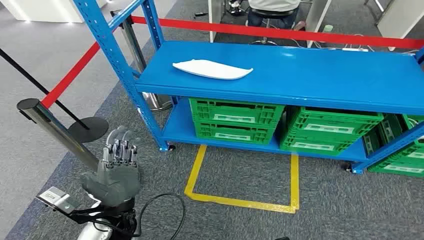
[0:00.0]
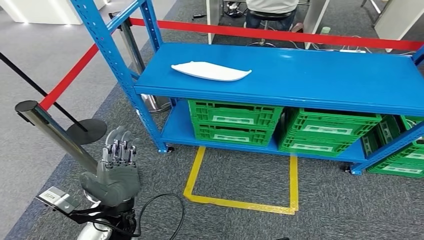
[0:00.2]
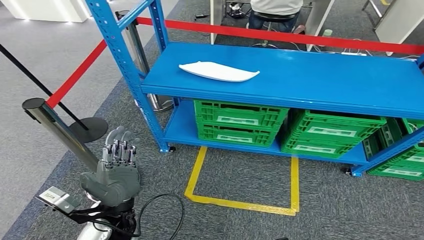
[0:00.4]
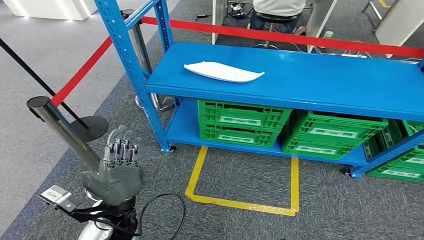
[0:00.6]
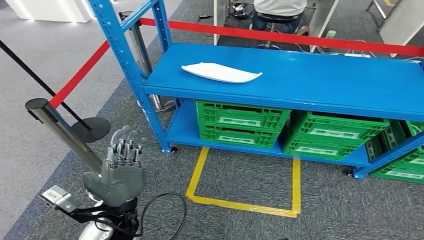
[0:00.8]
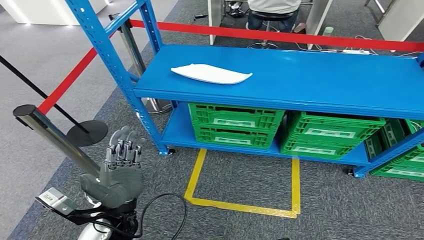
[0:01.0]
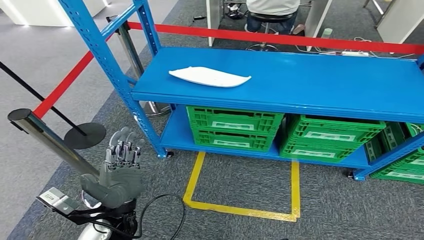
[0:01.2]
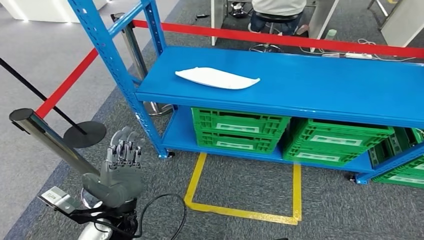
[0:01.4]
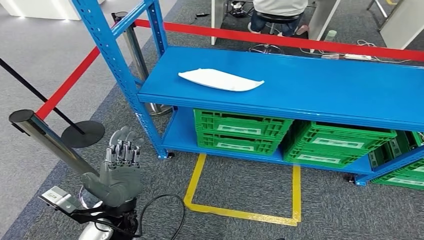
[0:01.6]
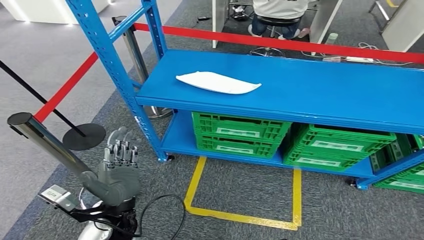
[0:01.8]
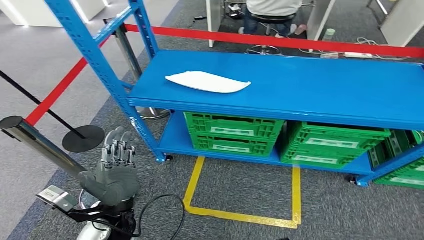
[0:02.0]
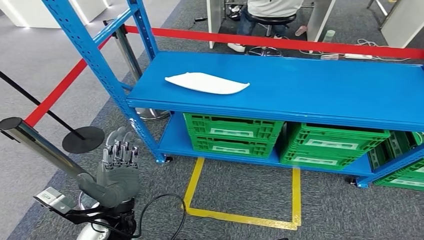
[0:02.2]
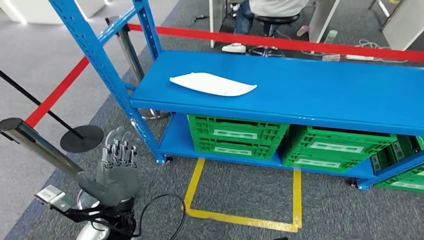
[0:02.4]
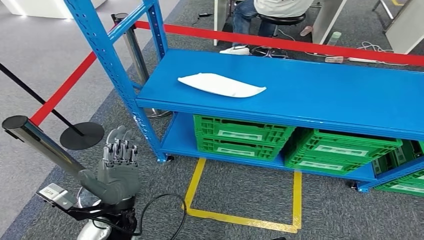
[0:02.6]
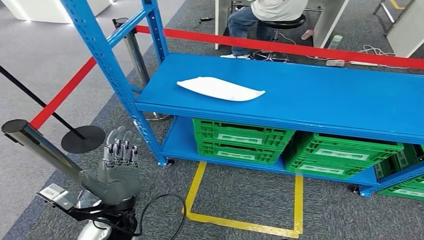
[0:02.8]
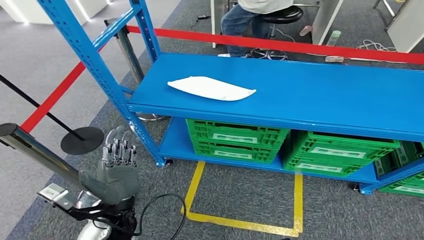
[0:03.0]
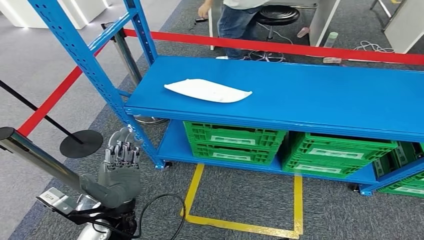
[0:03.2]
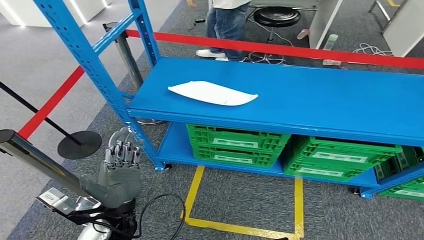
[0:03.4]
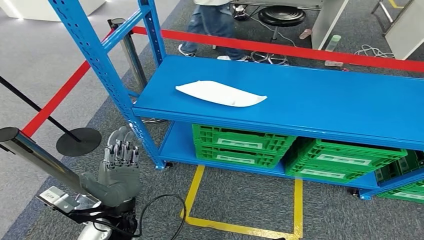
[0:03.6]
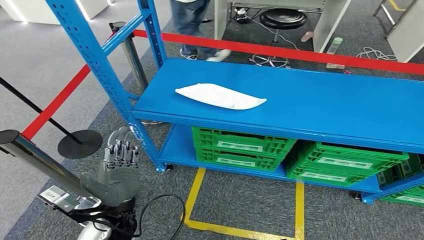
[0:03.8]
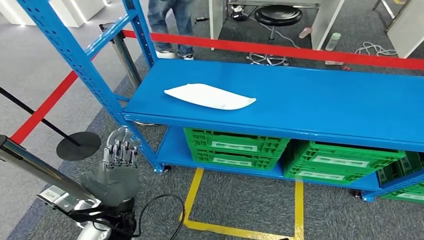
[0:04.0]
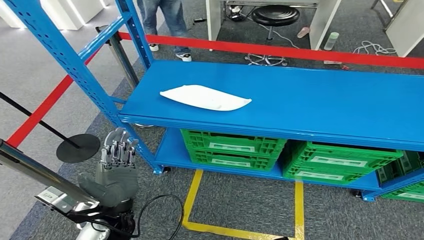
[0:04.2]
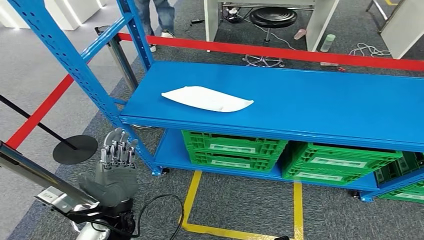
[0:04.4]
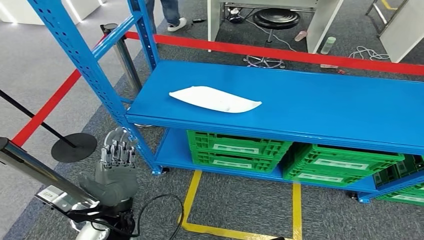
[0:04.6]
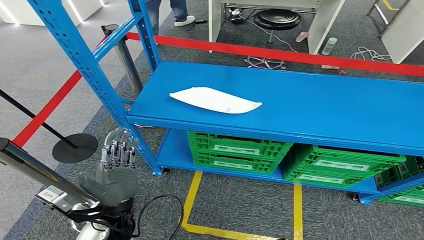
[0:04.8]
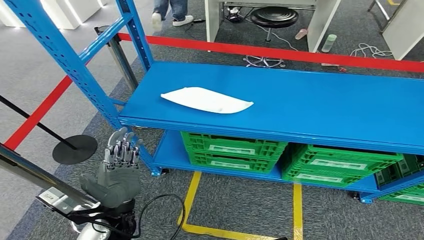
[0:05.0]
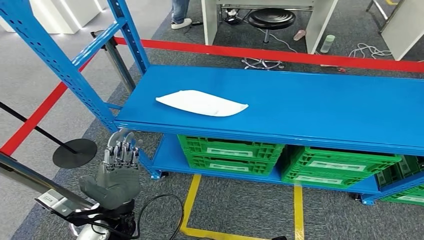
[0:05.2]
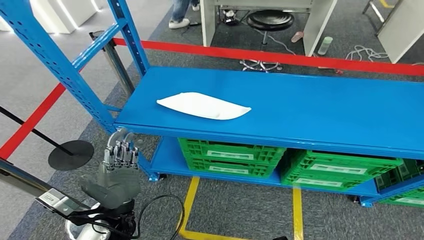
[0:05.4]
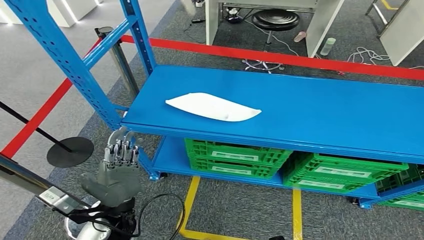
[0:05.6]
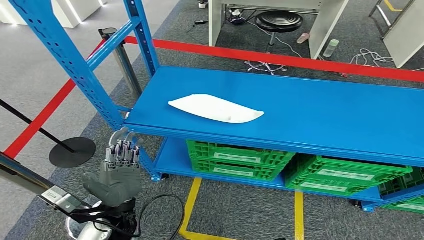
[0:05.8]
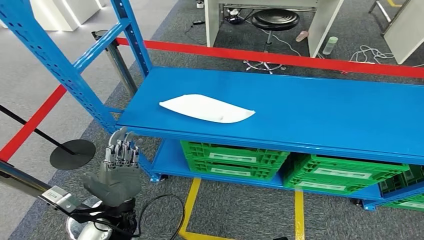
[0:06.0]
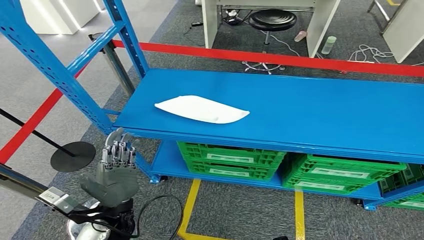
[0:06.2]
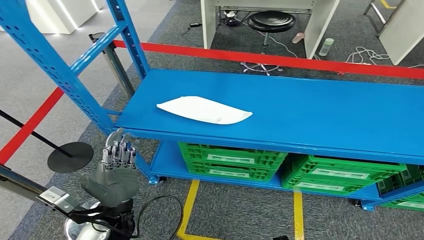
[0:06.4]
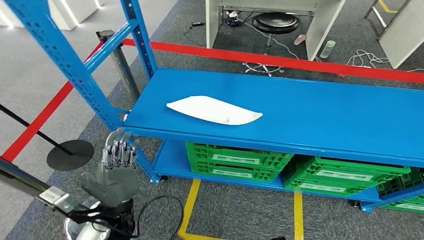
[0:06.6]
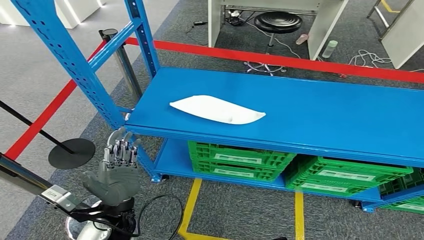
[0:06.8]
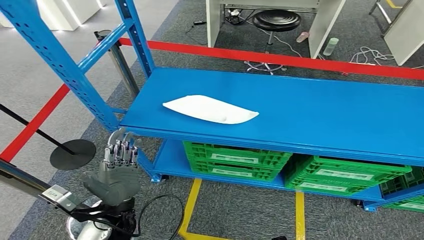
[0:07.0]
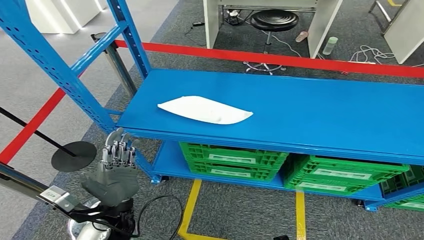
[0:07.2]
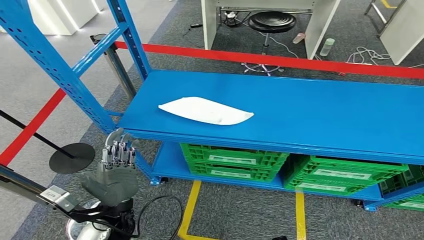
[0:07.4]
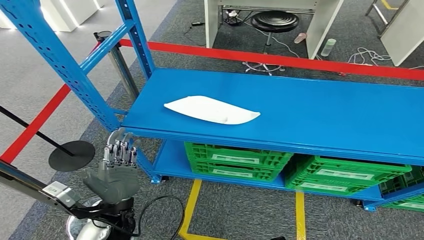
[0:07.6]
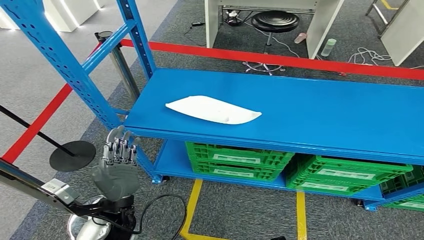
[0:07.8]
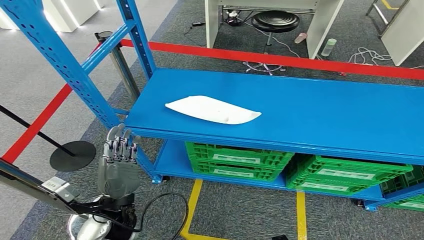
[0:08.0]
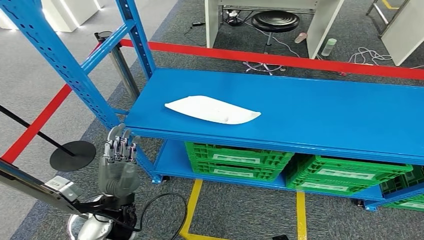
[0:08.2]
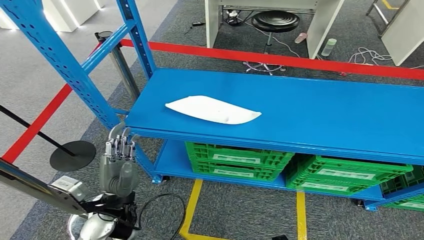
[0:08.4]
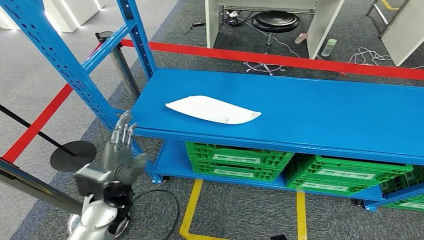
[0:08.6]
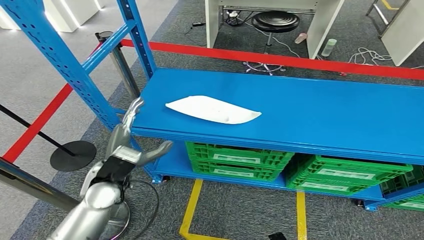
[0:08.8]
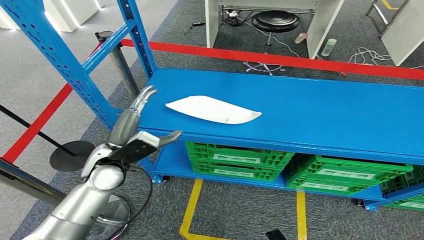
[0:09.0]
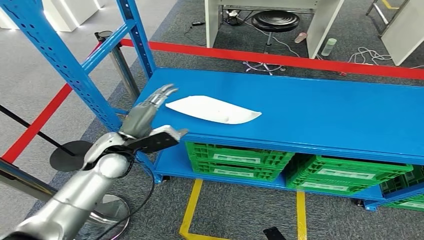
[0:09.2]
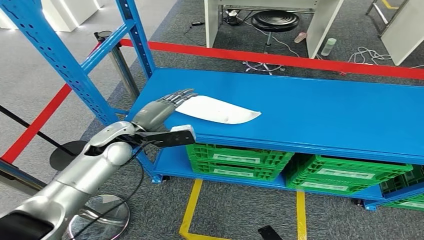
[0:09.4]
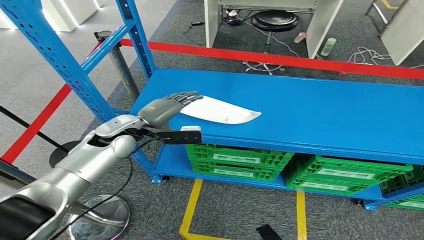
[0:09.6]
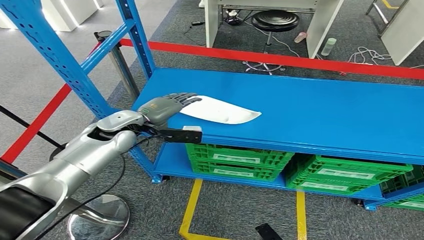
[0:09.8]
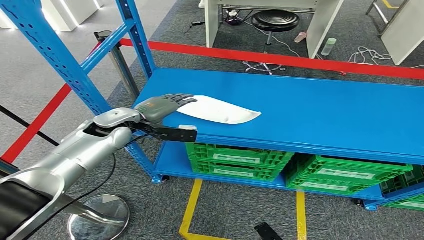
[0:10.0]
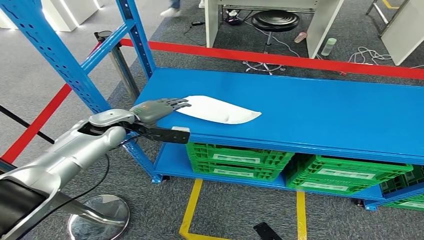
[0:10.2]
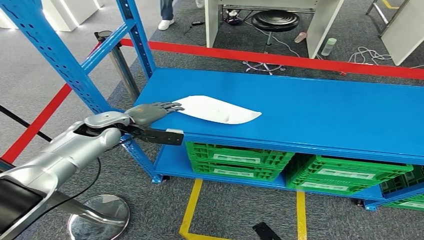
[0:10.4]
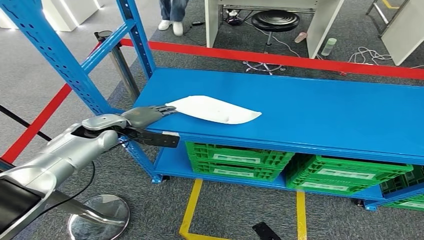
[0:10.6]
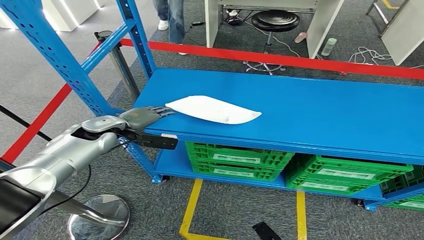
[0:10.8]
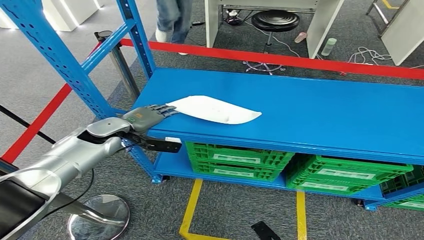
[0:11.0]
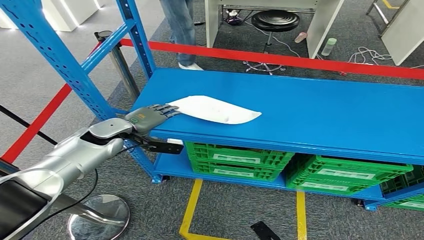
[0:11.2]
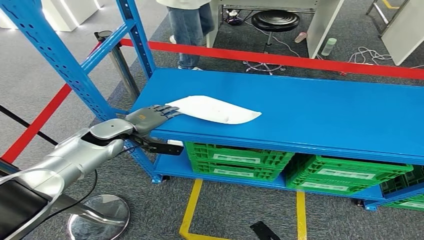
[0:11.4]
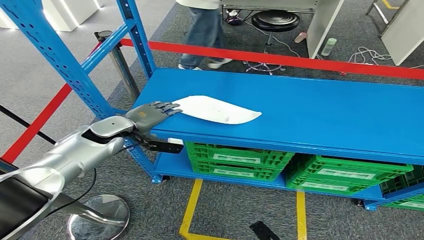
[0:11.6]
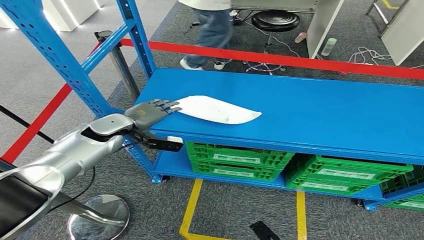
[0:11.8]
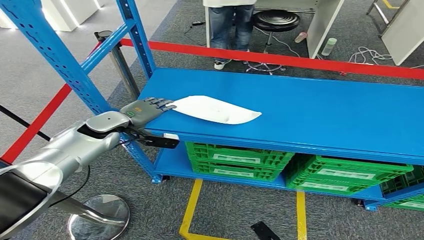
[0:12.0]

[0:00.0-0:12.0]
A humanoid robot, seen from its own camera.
0:06.0 to 0:07.6: Both hands stay about where they are.
0:07.6 to 0:09.0: The left hand moves forward, roughly 15 cm.
0:09.0 to 0:10.4: The left hand shifts about 10 cm forward.

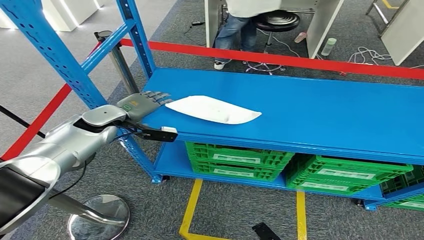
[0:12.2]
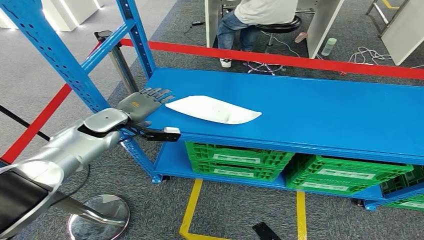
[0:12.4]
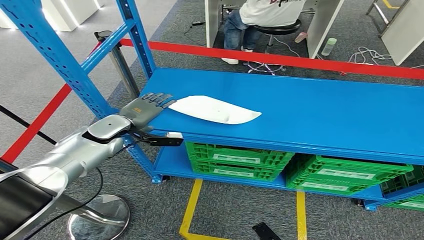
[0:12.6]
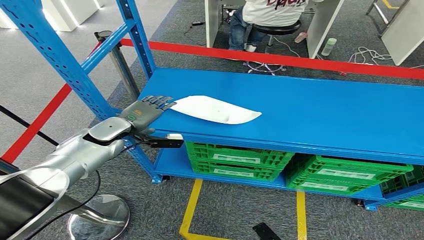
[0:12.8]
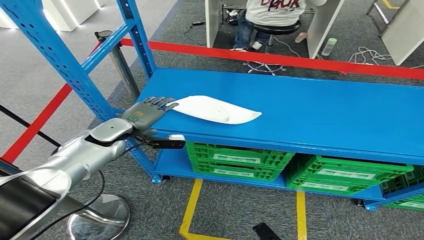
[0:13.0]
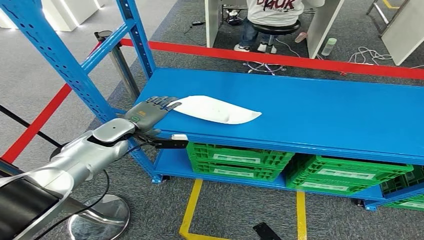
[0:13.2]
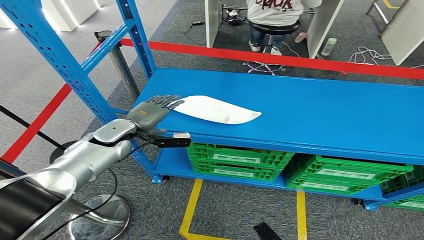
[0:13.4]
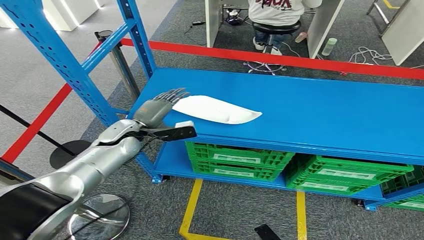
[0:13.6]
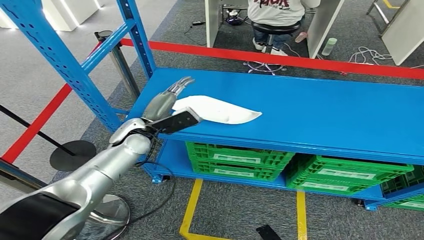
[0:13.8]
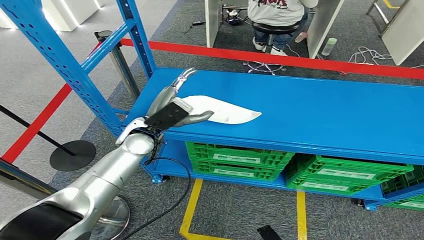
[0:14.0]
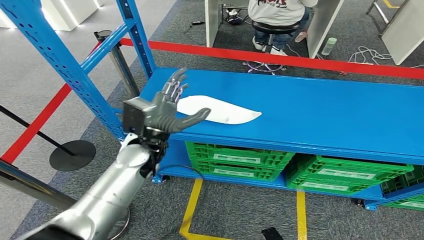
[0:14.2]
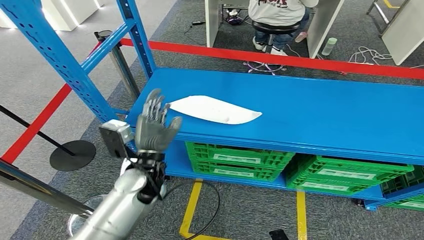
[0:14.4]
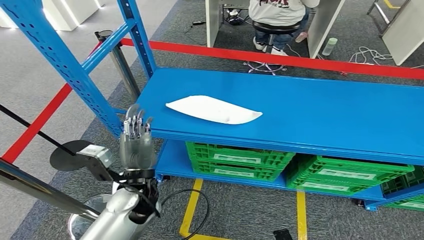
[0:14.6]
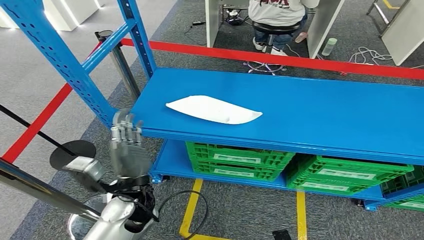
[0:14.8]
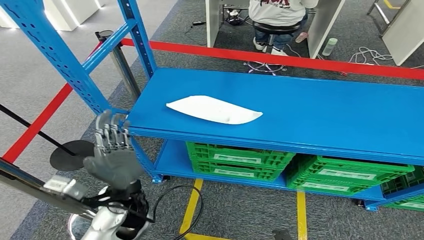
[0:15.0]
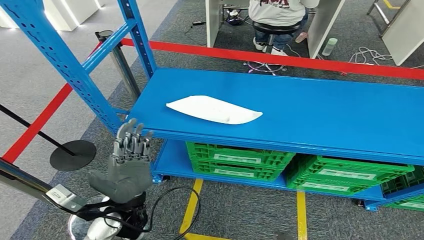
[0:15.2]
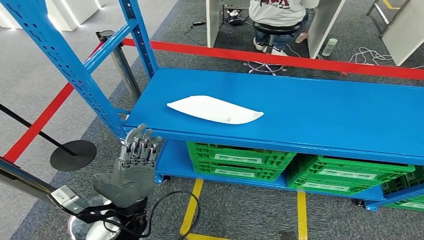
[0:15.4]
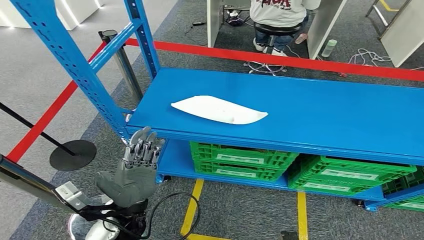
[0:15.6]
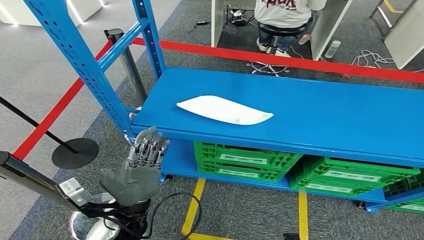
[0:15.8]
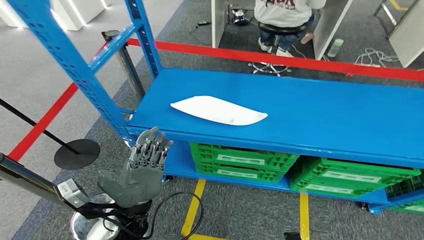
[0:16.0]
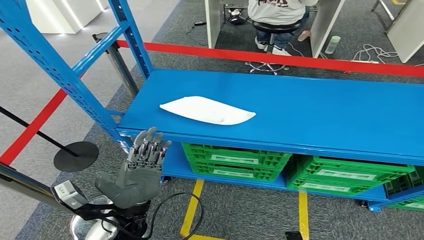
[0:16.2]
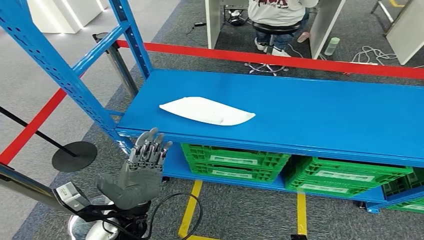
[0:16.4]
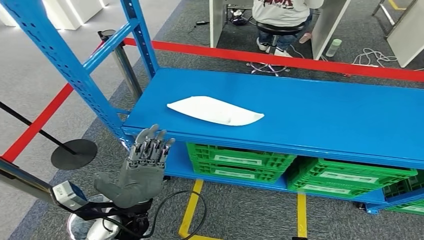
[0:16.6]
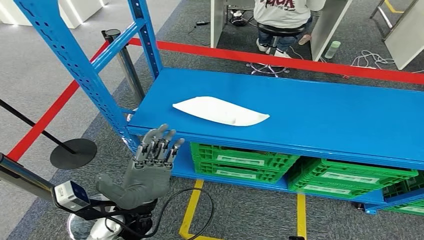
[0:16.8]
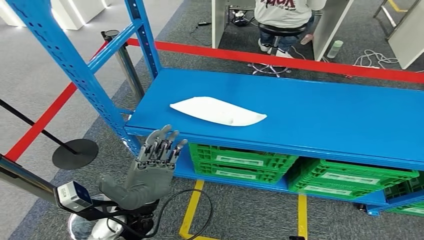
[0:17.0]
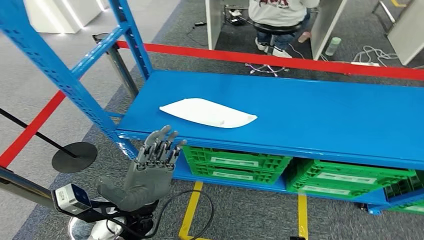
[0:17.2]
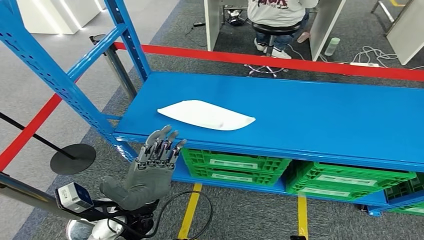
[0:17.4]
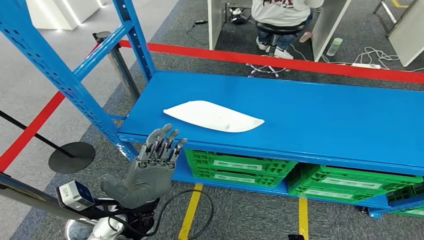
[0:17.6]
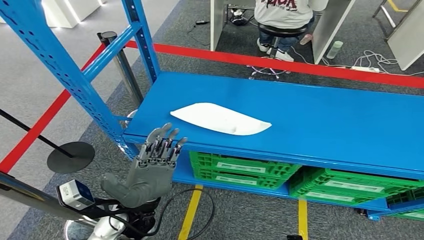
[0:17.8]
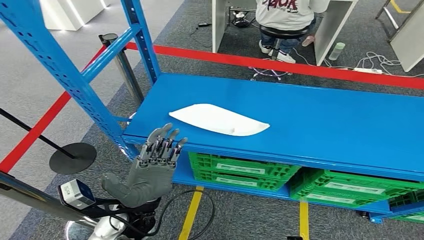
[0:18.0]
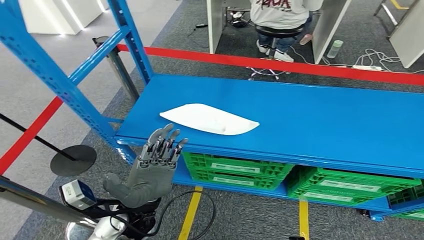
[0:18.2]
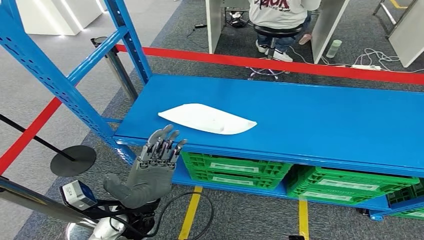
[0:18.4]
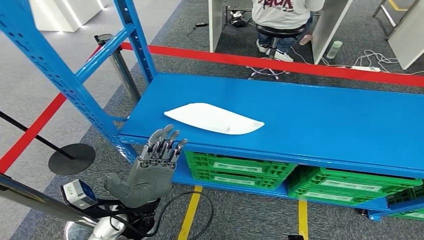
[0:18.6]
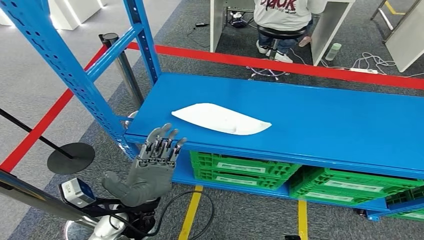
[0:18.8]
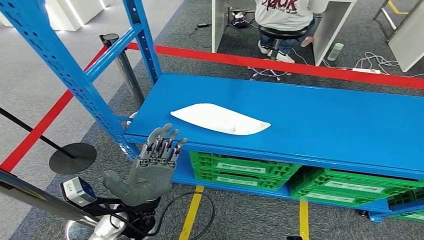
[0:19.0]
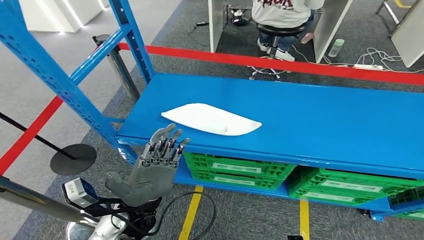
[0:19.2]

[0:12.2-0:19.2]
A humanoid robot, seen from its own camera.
0:12.2 to 0:13.6: The left hand changes place by roughly 5 cm.
0:13.6 to 0:15.0: The left hand travels backward by approximately 20 cm.
0:17.8 to 0:19.2: The two hands keep their place.
